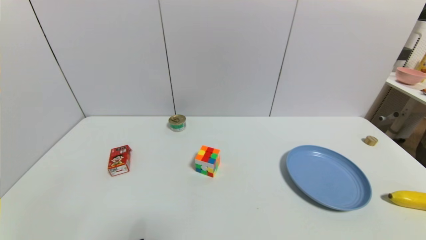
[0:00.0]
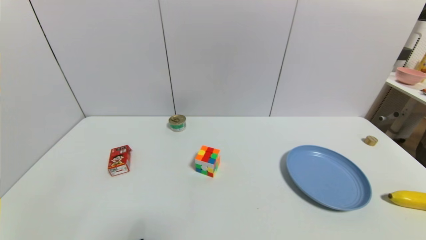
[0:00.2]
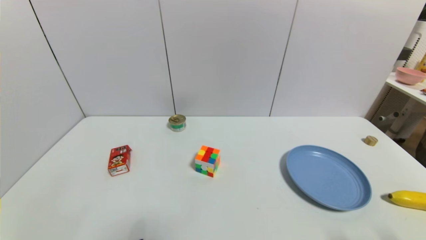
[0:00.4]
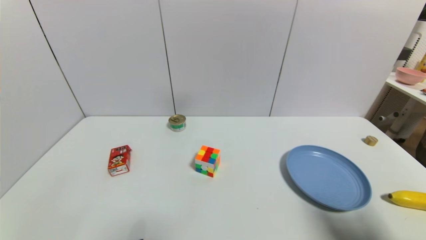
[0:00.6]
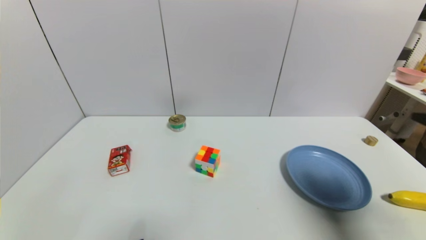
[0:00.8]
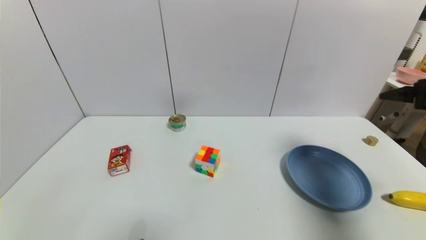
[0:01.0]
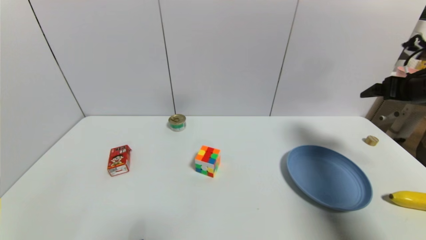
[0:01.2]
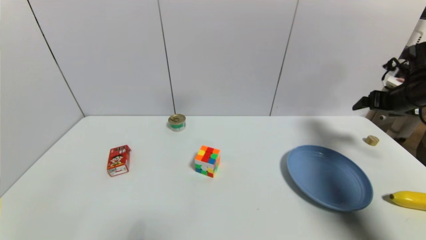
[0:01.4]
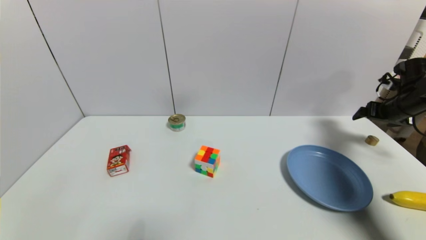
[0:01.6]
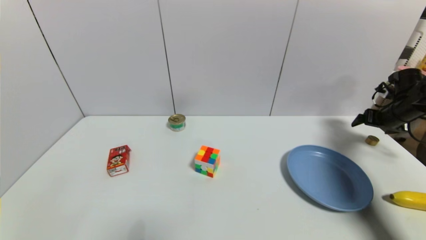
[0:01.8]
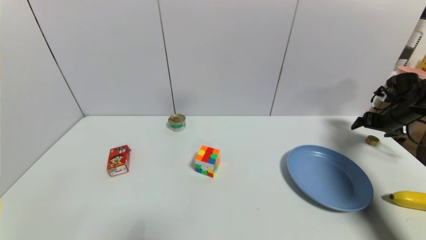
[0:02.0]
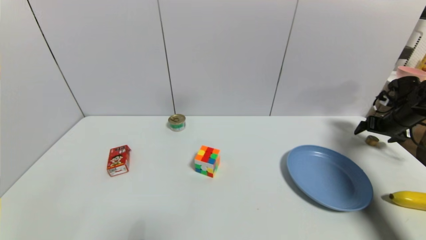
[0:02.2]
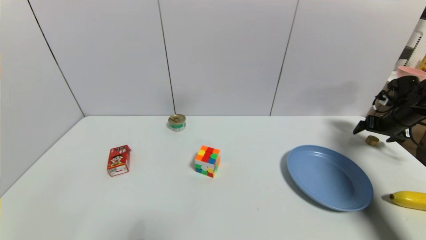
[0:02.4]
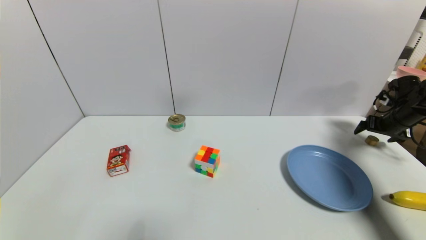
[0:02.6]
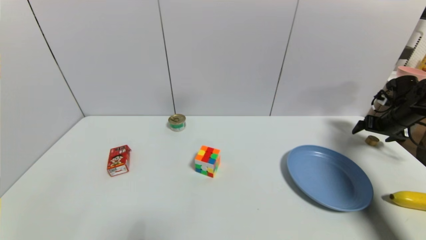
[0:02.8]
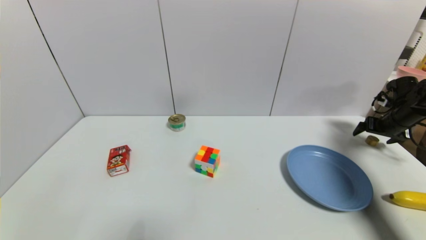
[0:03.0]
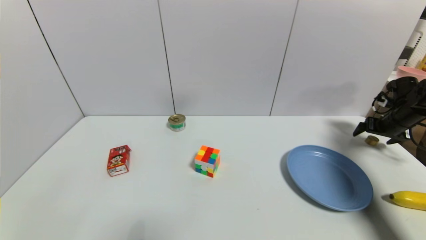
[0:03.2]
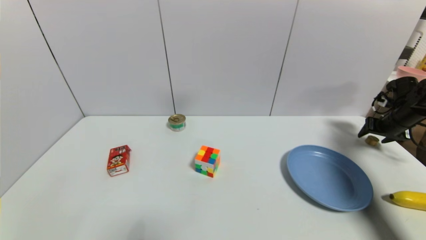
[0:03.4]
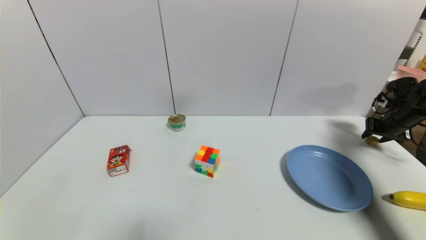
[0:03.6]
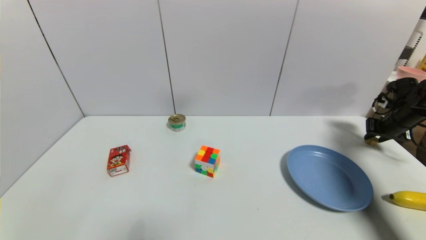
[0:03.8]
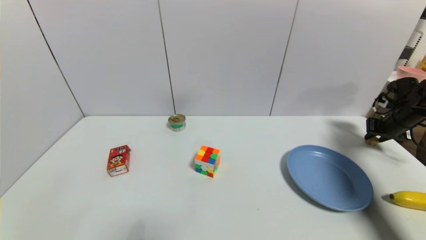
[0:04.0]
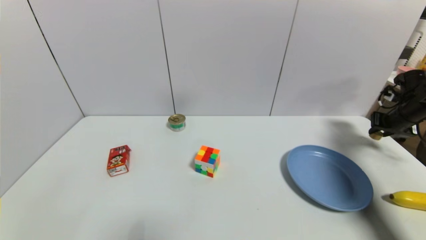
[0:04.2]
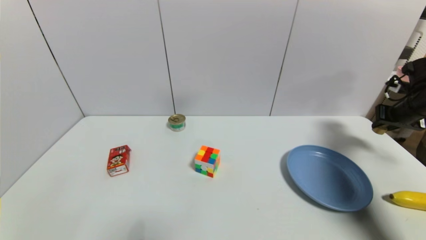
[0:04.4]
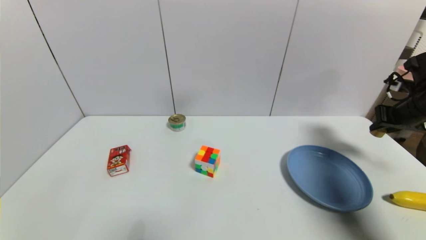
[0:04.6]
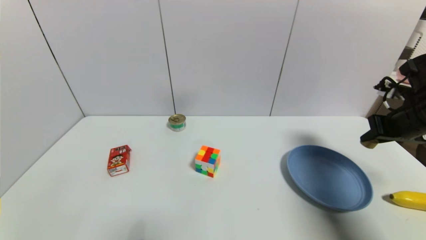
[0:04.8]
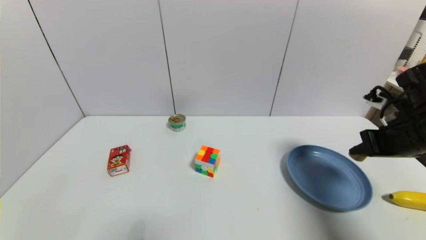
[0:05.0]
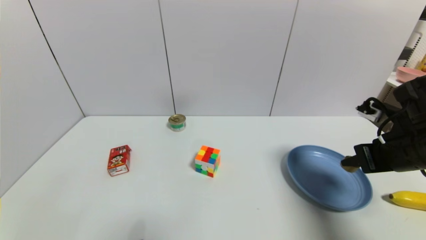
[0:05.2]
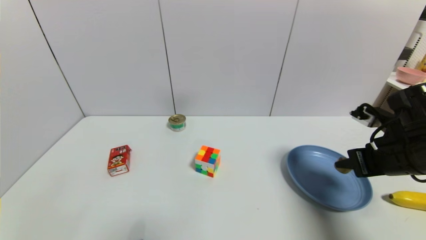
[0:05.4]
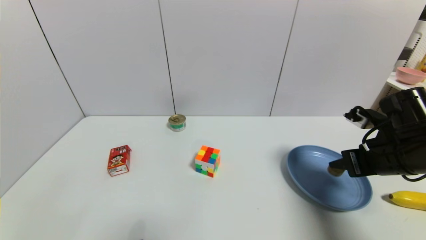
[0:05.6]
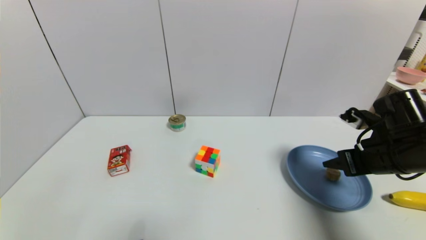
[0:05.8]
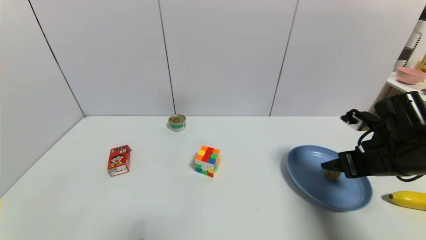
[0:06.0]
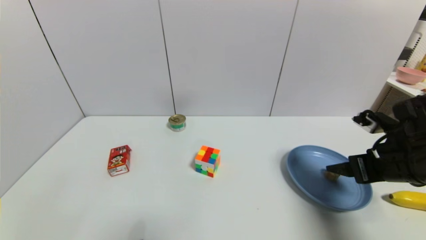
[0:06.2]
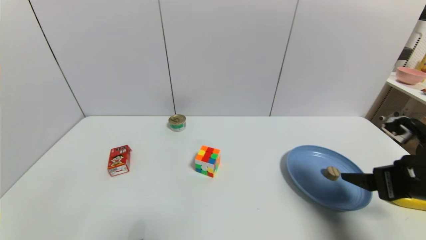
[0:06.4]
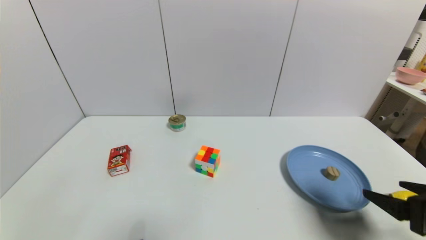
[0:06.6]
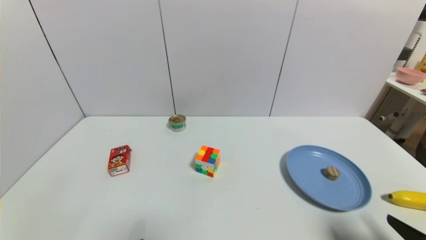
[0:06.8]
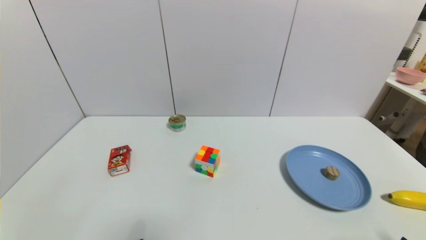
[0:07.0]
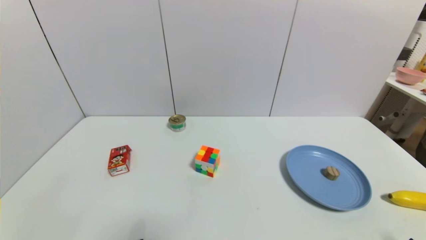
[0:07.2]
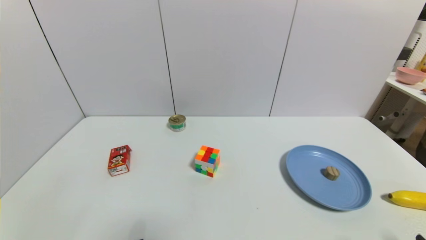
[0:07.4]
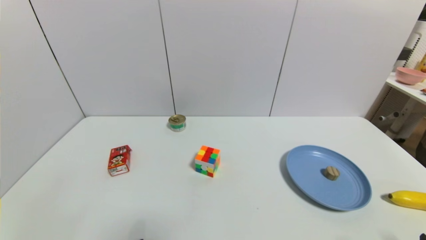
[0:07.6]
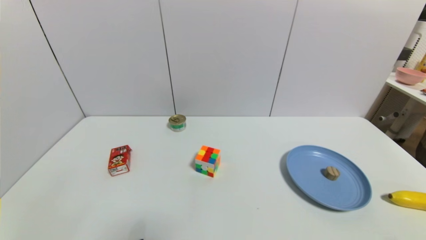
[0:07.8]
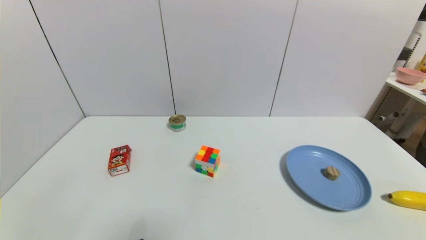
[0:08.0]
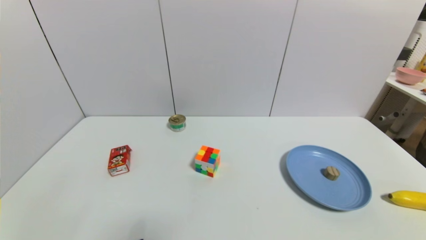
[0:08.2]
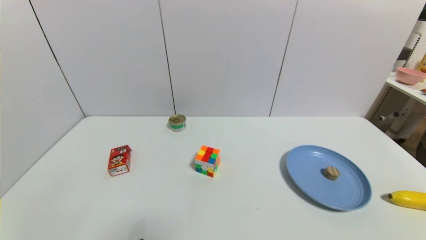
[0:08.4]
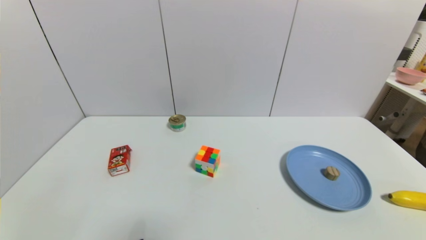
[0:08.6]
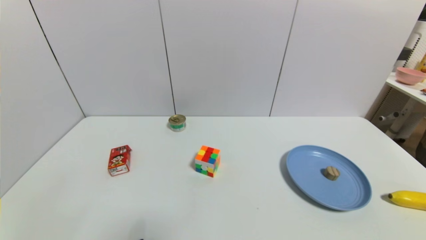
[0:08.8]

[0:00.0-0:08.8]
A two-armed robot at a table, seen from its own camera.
Task of the whole recording: use a gripper to pick the target object and place on the blue plate.
Step, 0:00.0 to 0:03.8: Grasp the round wooden block with the right gripper.
Step, 0:04.0 to 0:06.6: Place the round wooden block on the blue plate with the right gripper.
0:00.0 to 0:01.4: The right gripper moves forward, some 40 cm.
0:01.4 to 0:03.0: The right gripper shifts some 10 cm downward and to the right.
0:03.0 to 0:04.4: The right gripper travels upward by some 5 cm, and closes.
0:04.4 to 0:05.8: The right gripper travels to the left and backward by roughly 20 cm, and opens up.
0:05.8 to 0:07.4: The right gripper is displaced backward by approximately 25 cm, and opens.
